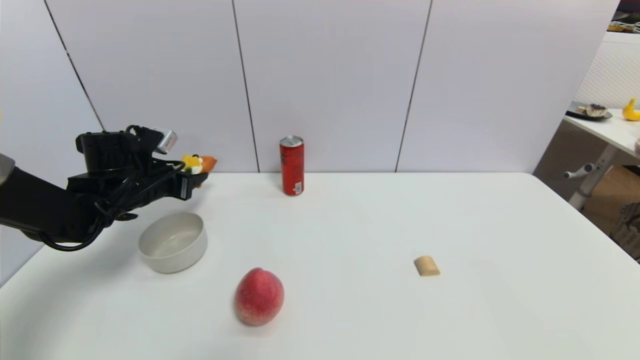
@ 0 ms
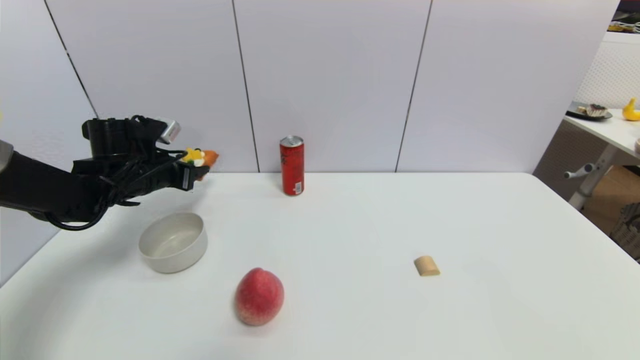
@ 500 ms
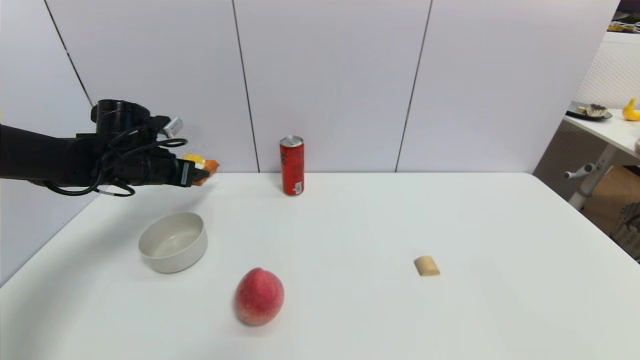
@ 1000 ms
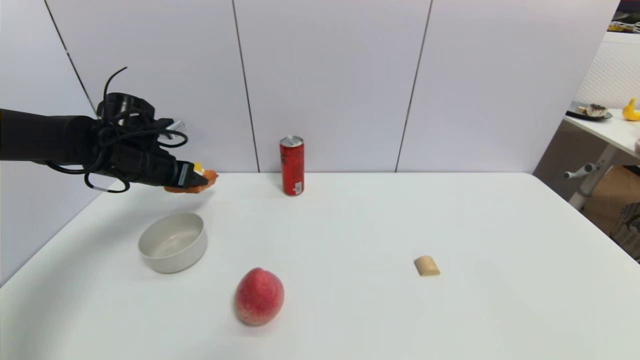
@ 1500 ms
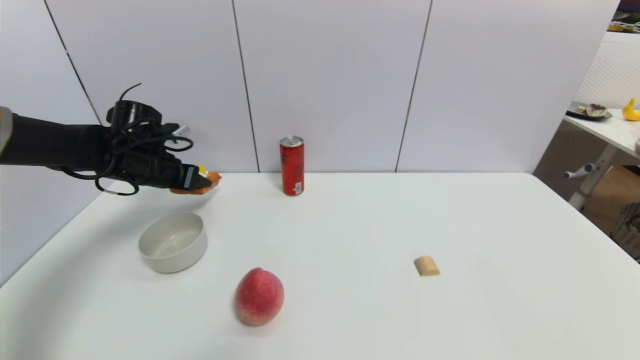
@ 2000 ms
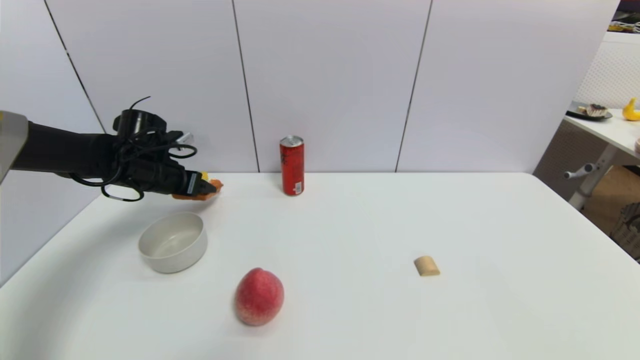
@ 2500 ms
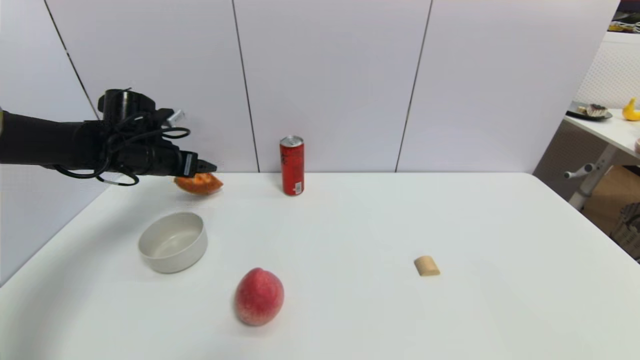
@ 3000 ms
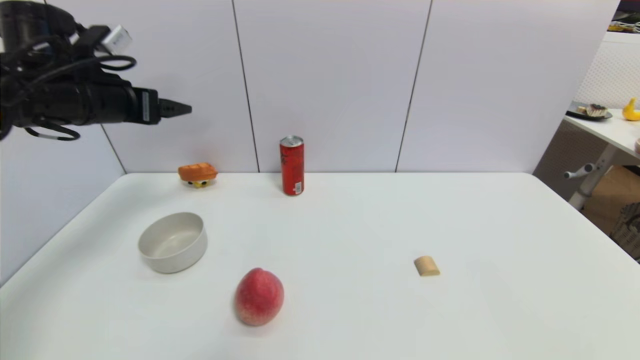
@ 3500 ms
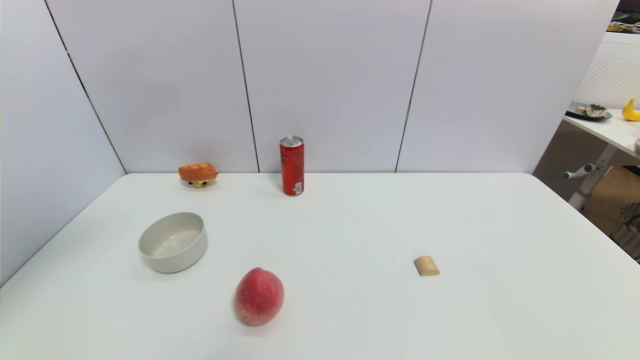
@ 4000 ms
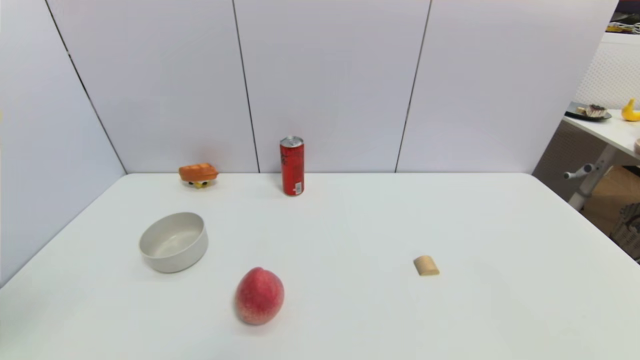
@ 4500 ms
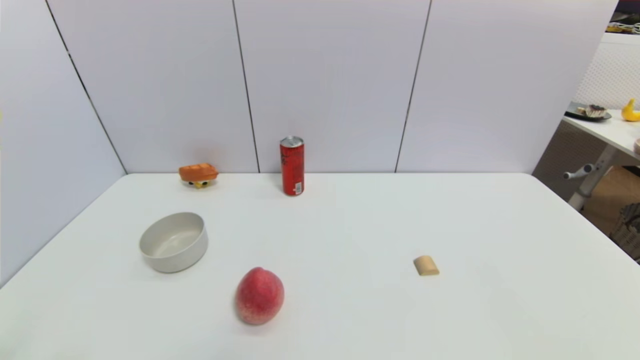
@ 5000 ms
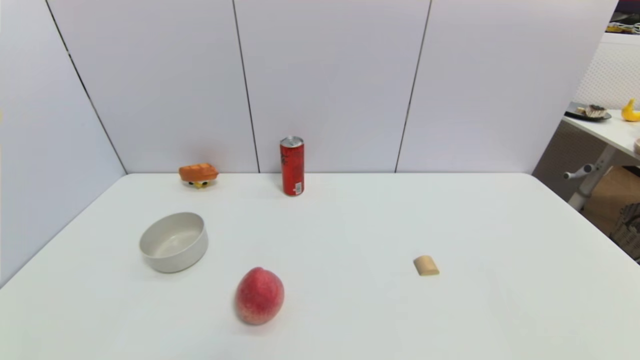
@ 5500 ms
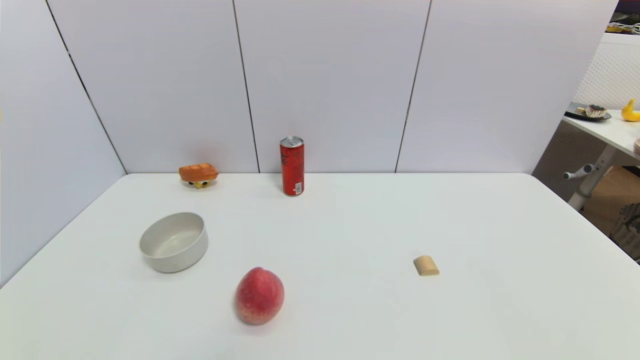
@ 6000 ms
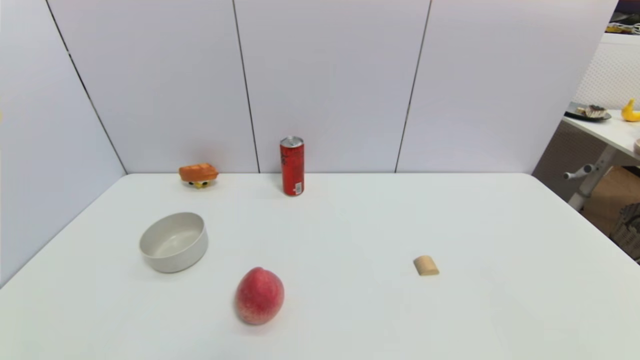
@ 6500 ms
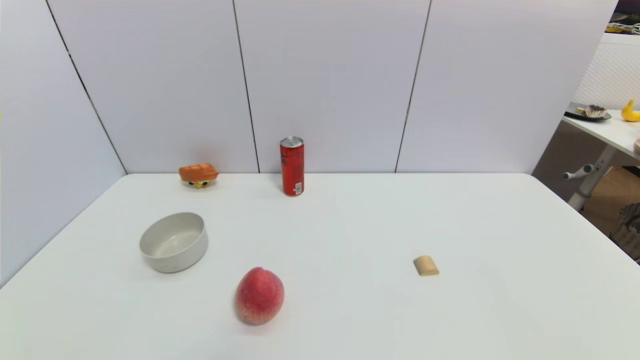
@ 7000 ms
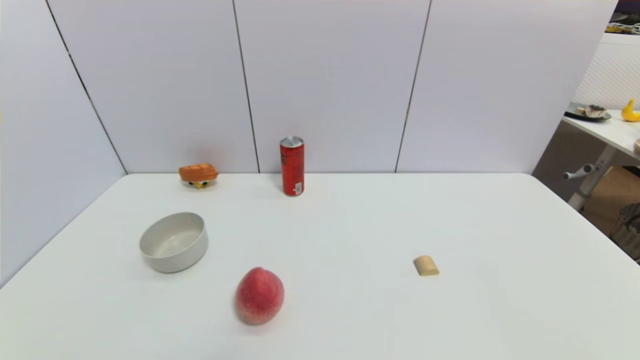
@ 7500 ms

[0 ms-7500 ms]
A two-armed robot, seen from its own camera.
Step, 0 ms to 3000 ms: Place the pizza on the table with left gripper.
2000 ms to 4000 ms: The left gripper is displaced backward and upward by some 35 cm, and opens up.
4000 ms to 5500 ms: The left gripper shifts approximately 35 cm downward and backward.
